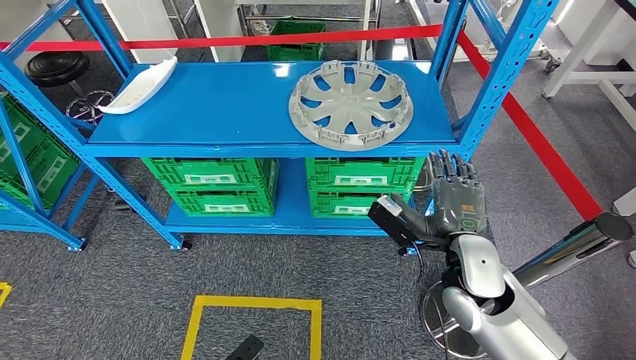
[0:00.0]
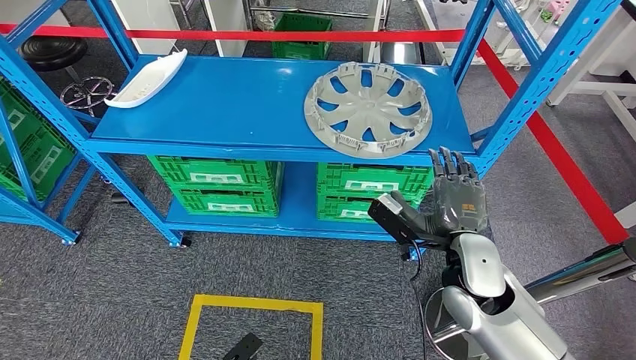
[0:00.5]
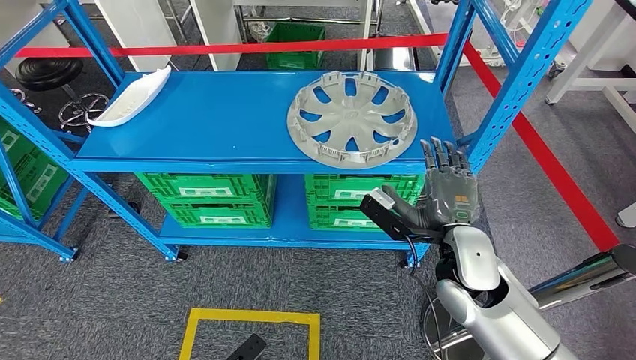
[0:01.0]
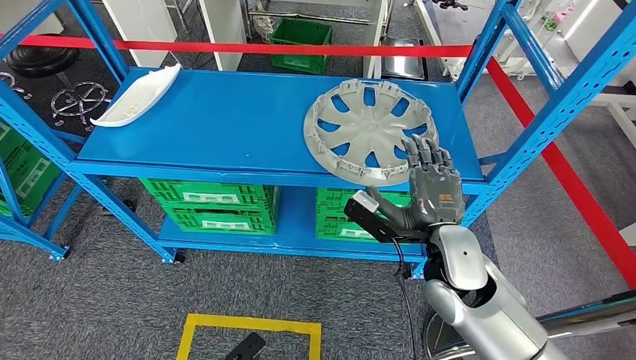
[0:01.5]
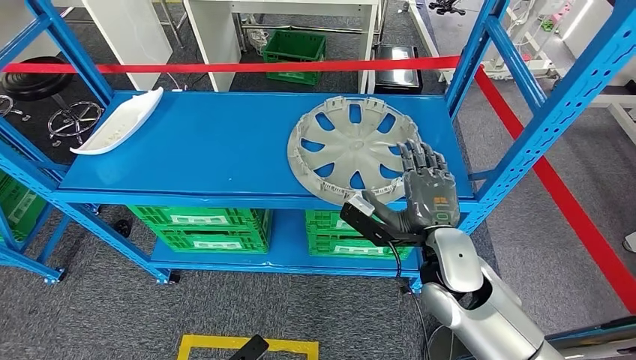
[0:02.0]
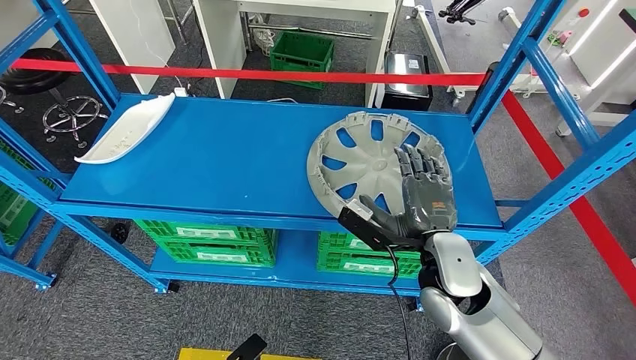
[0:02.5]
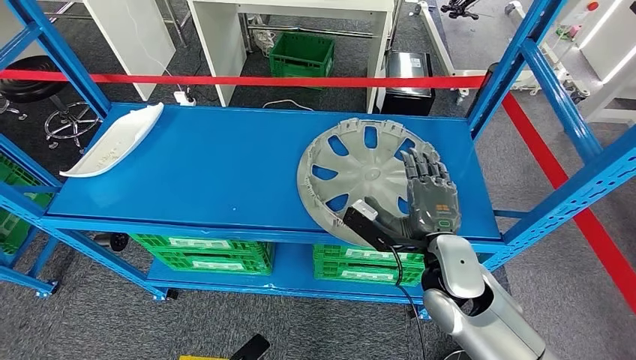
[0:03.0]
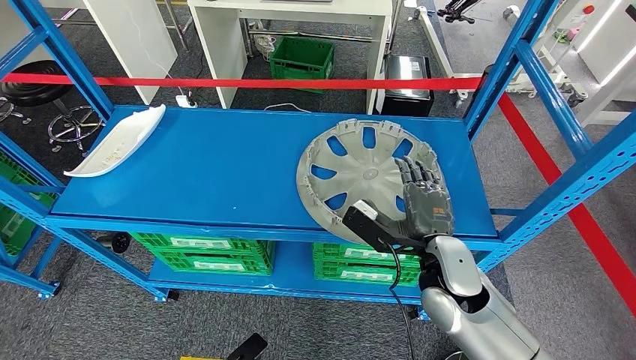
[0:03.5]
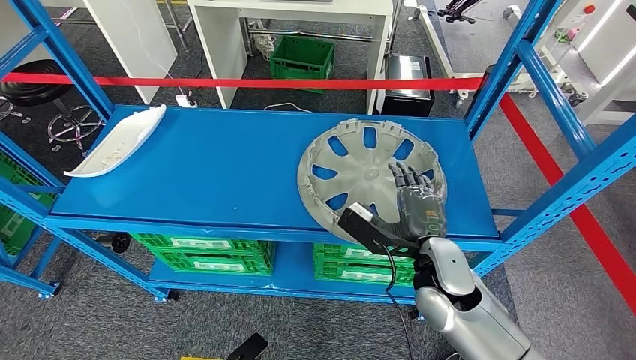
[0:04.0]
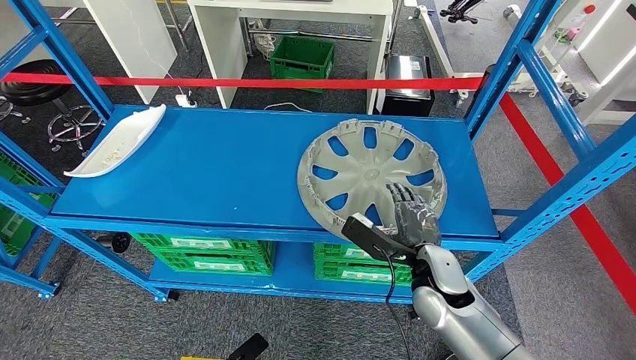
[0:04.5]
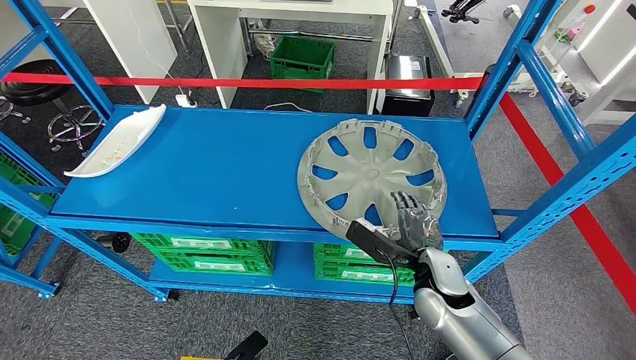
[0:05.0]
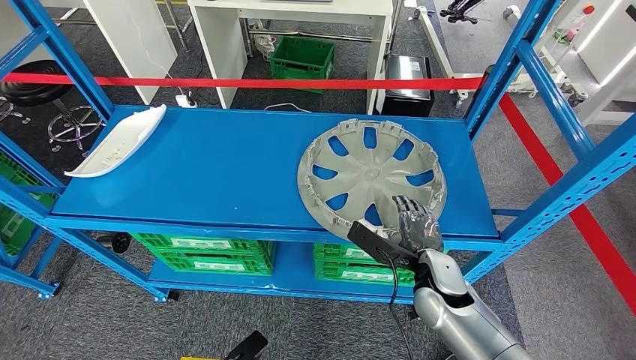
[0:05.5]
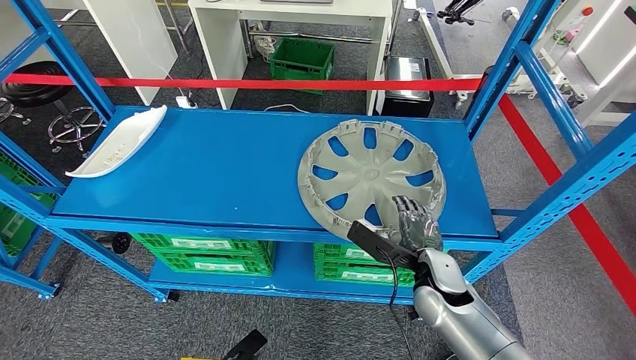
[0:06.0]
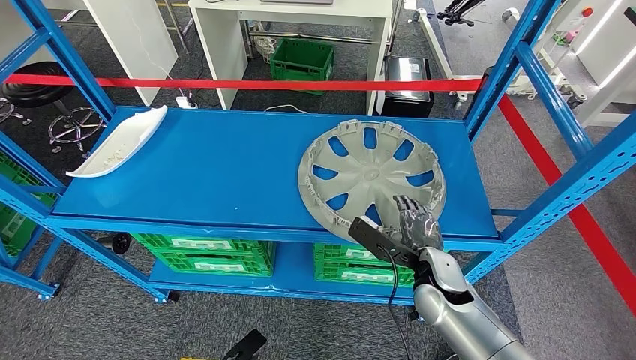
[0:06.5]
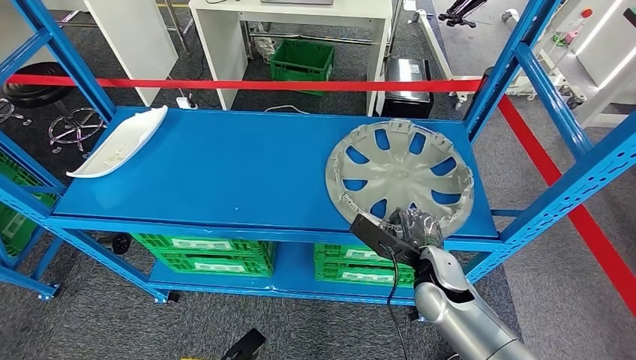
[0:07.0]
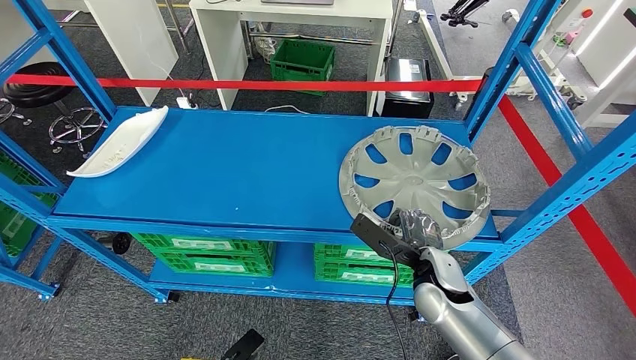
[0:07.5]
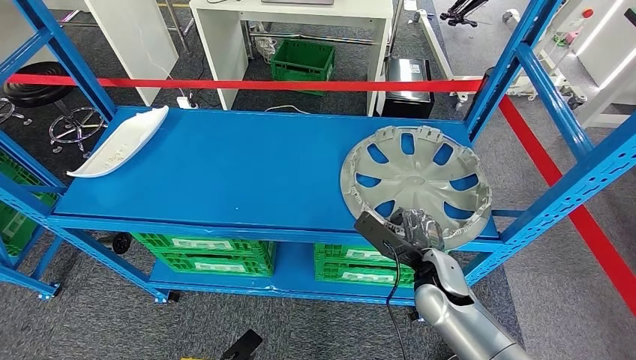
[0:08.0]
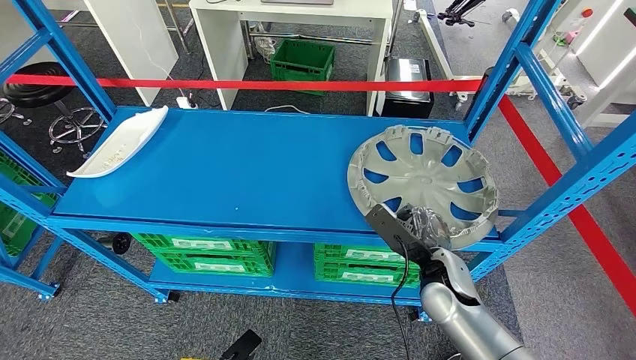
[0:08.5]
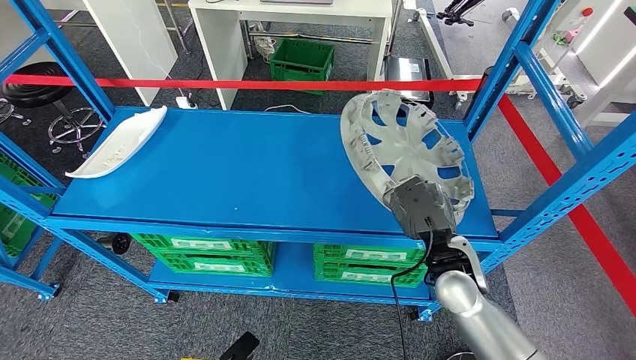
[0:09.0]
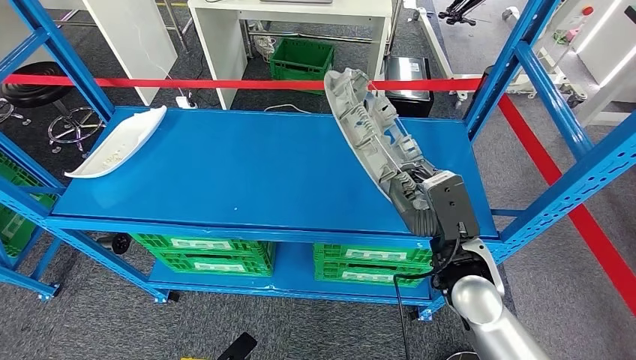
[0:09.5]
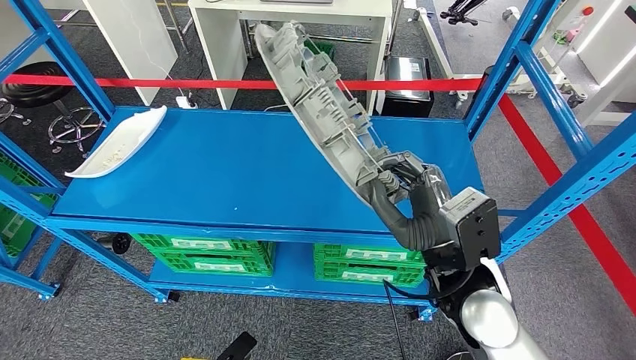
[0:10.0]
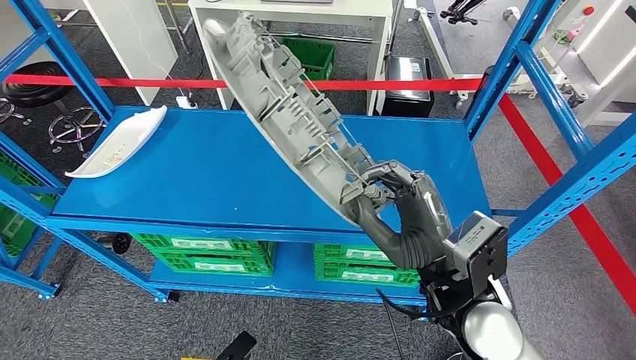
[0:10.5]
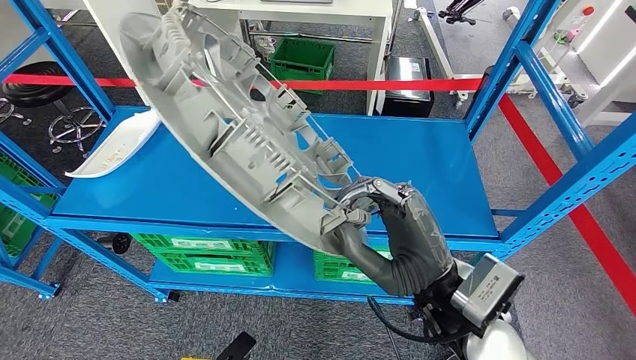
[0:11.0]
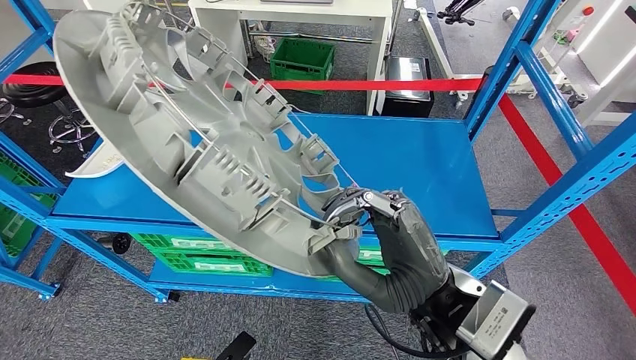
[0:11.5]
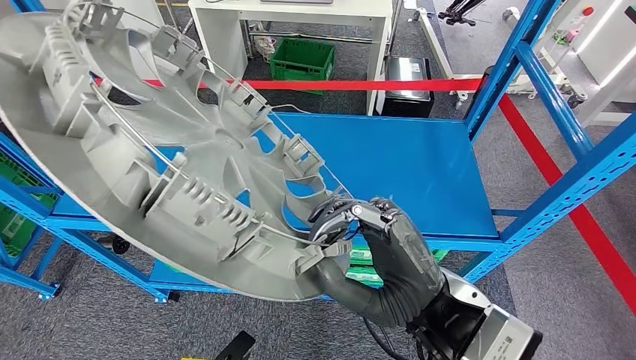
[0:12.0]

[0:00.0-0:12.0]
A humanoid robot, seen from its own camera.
Step, 0:00.0 to 0:09.0: Pick up the large material from the shelf.
0:04.0 to 0:06.0: The right hand goes about 5 cm downward.
0:06.0 to 0:08.0: The hands make only small movements.
0:08.0 to 0:10.0: The right hand shifts some 15 cm upward.

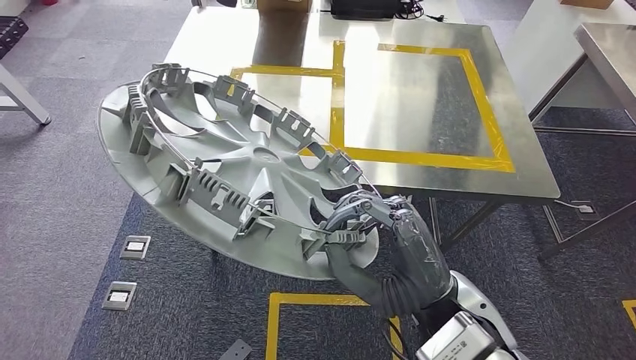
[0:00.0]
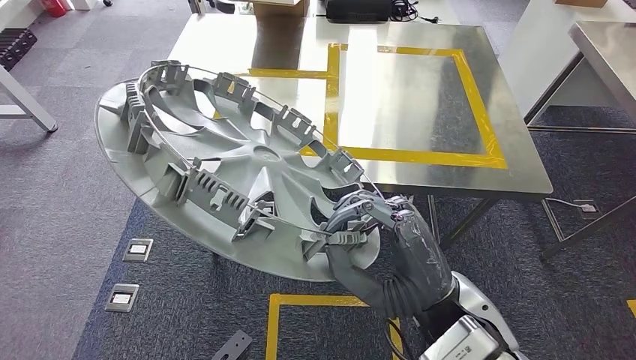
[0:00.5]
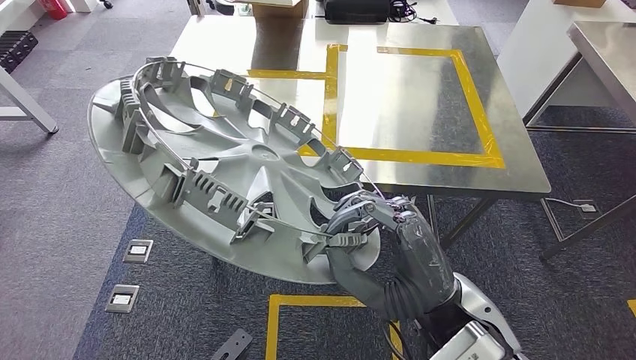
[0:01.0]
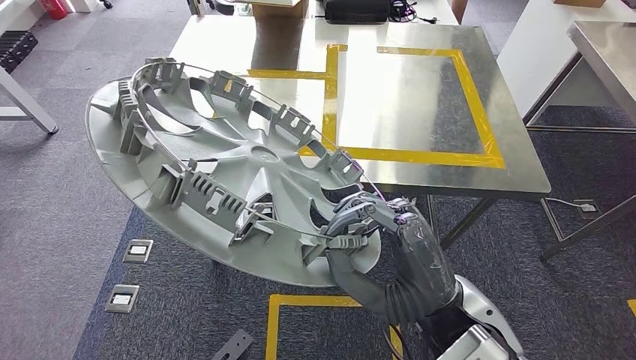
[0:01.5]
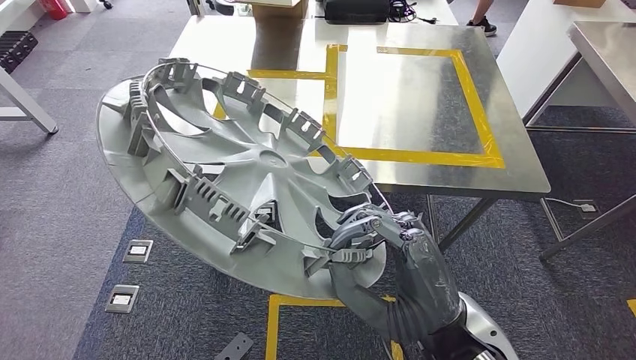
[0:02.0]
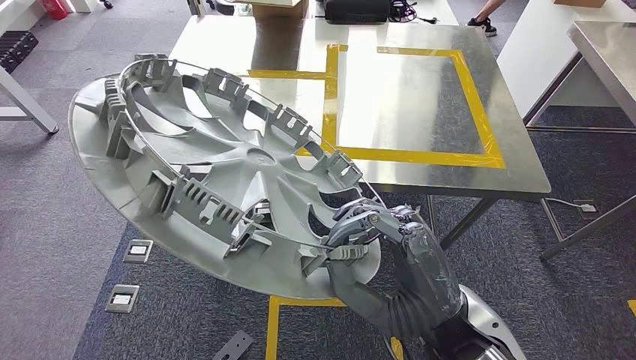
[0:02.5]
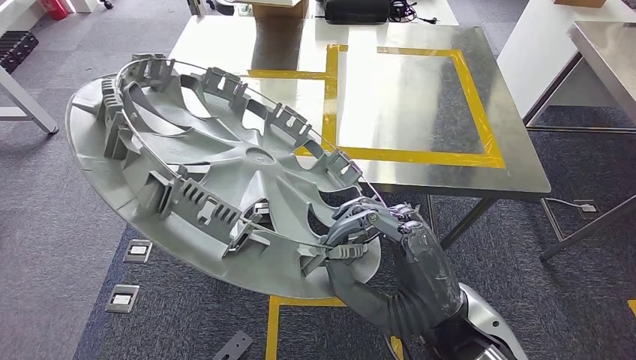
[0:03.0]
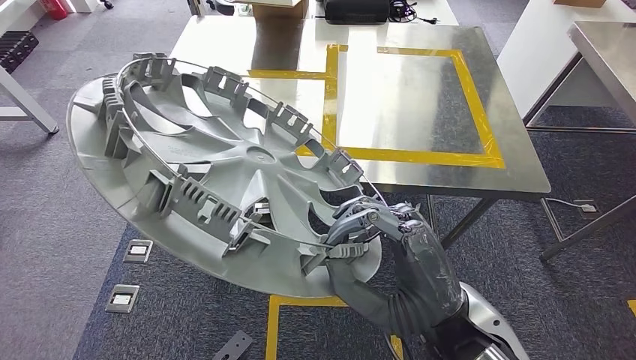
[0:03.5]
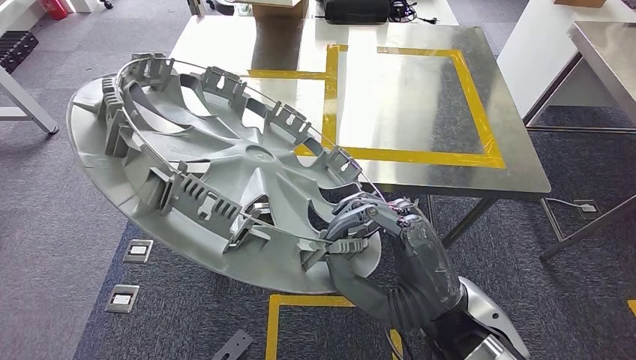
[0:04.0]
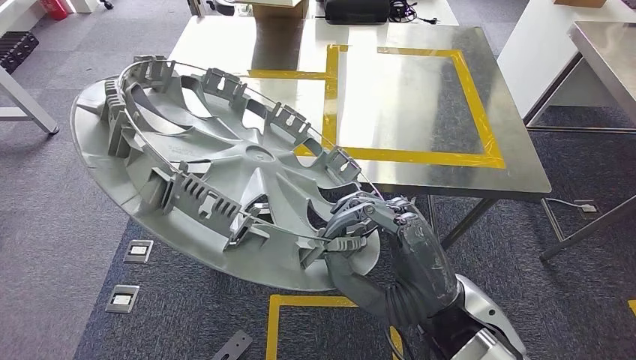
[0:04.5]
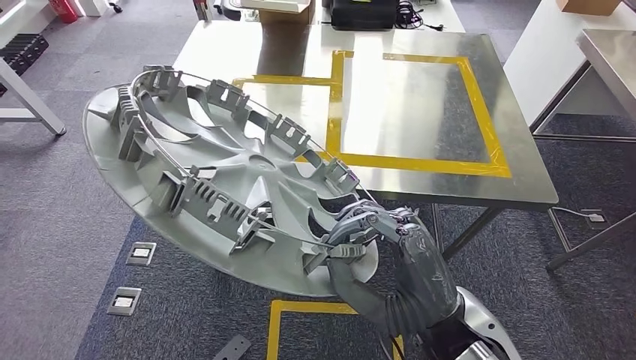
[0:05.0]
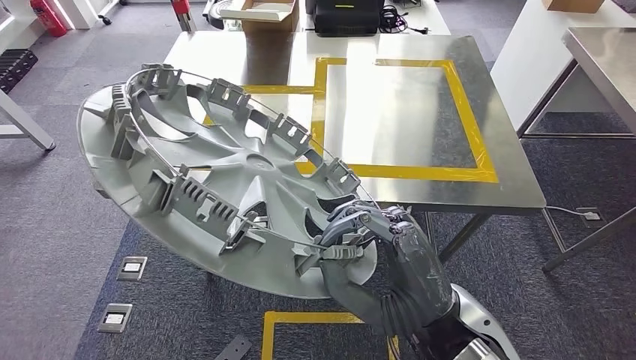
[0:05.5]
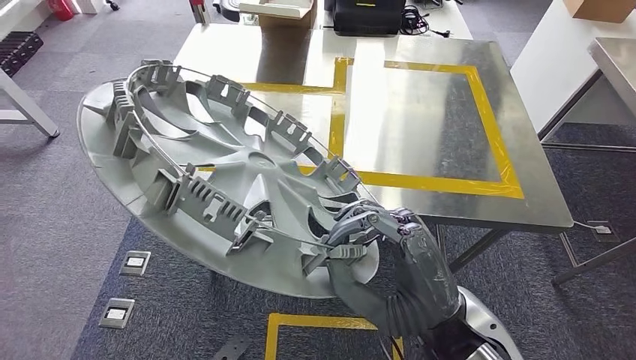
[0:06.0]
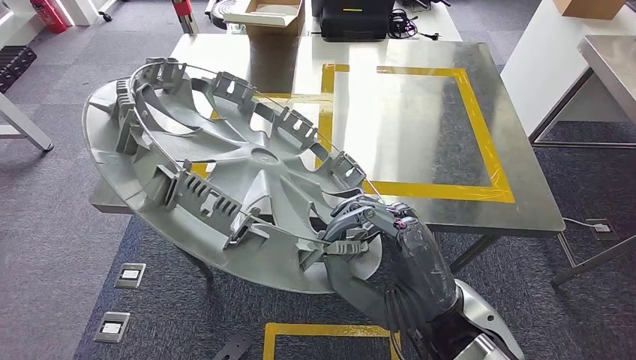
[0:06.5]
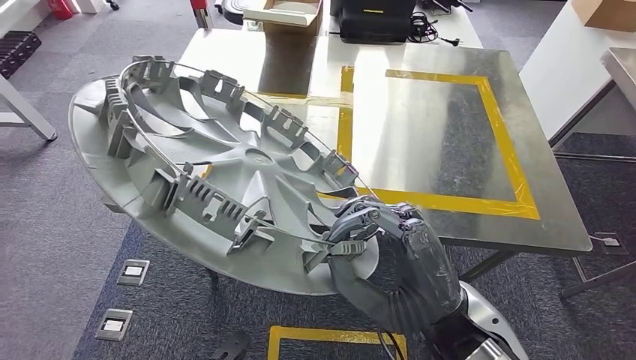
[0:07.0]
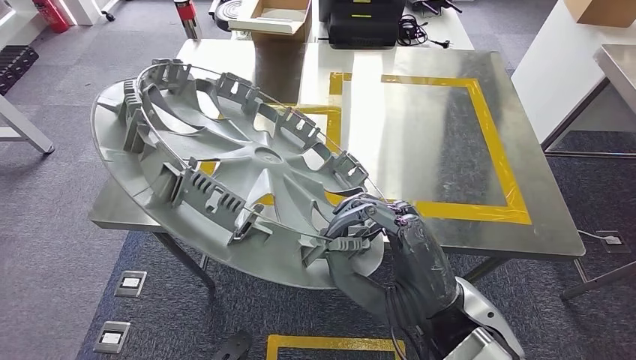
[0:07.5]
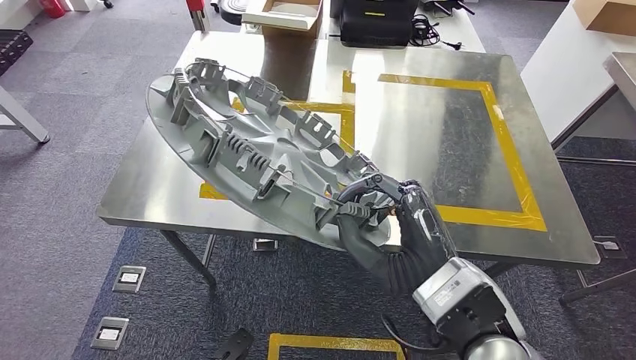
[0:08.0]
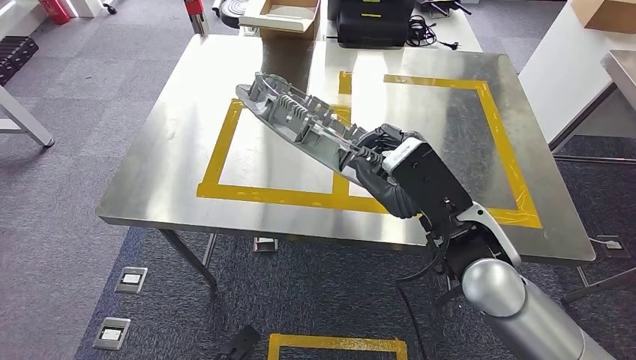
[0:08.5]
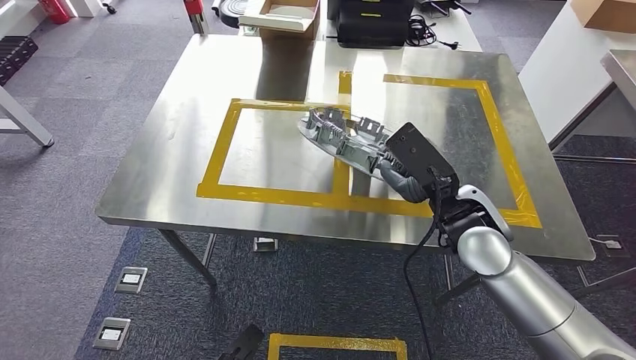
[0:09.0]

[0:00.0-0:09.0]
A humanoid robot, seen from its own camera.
Step, 0:00.0 to 0:04.5: Move the large material to the workbench.
0:02.0 to 0:04.5: The hands stay close to where they were, moving slightly.
